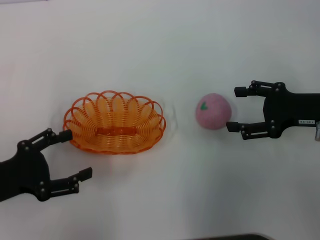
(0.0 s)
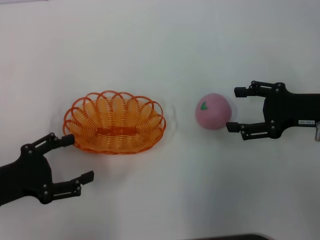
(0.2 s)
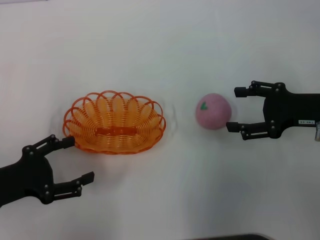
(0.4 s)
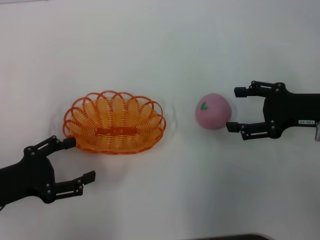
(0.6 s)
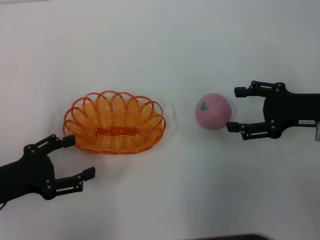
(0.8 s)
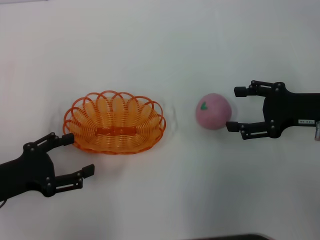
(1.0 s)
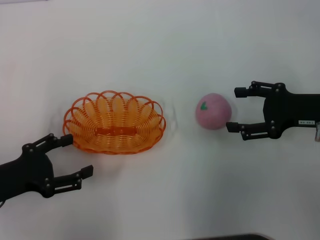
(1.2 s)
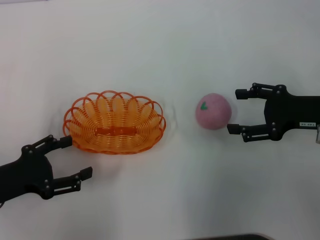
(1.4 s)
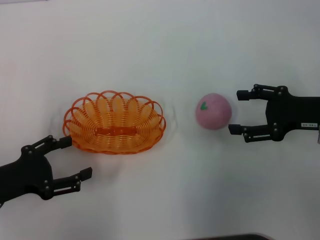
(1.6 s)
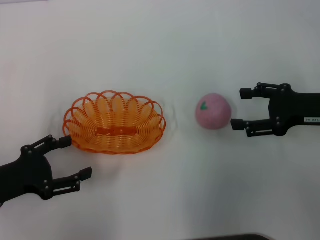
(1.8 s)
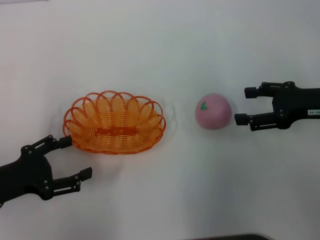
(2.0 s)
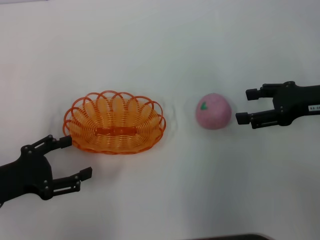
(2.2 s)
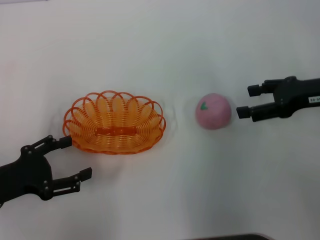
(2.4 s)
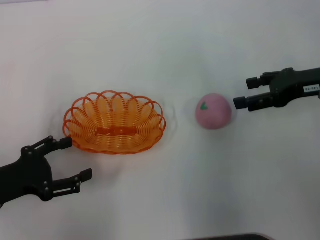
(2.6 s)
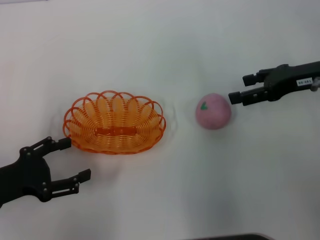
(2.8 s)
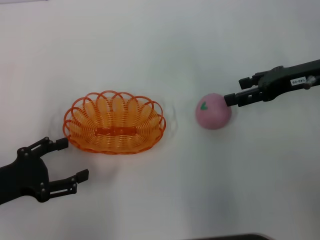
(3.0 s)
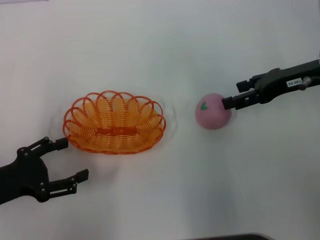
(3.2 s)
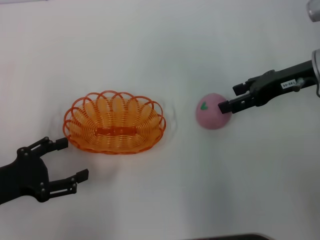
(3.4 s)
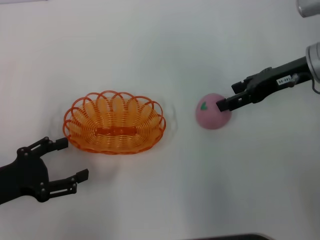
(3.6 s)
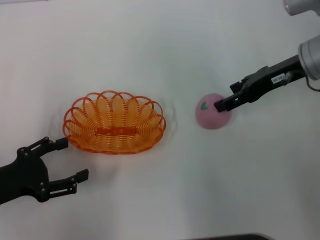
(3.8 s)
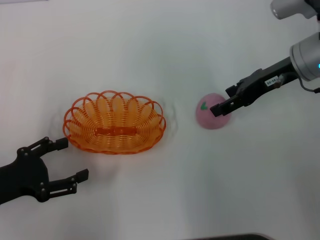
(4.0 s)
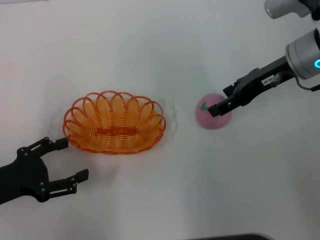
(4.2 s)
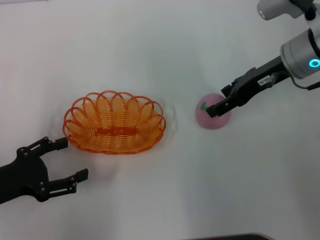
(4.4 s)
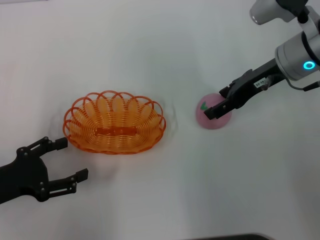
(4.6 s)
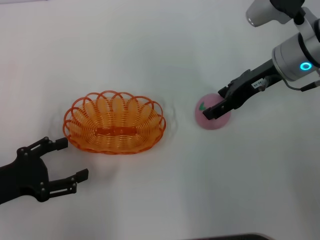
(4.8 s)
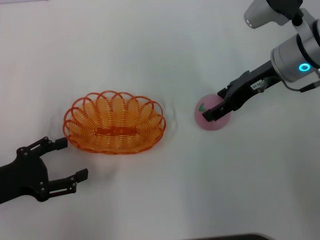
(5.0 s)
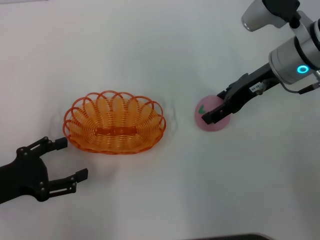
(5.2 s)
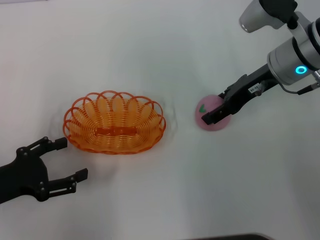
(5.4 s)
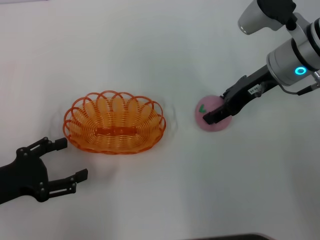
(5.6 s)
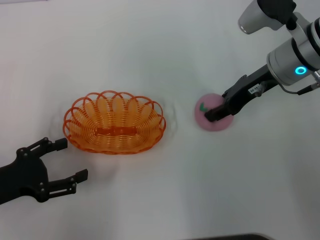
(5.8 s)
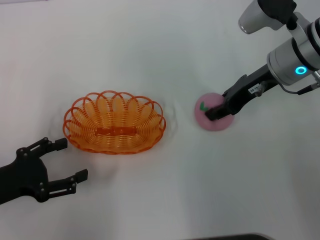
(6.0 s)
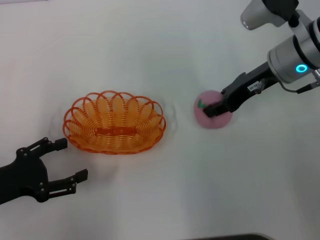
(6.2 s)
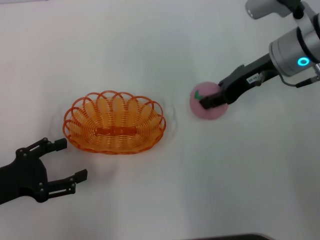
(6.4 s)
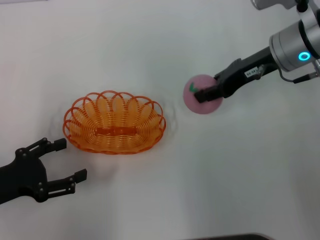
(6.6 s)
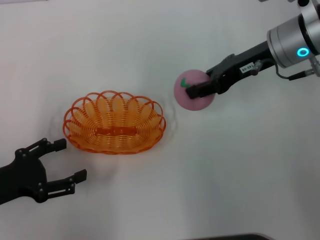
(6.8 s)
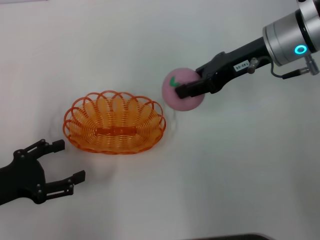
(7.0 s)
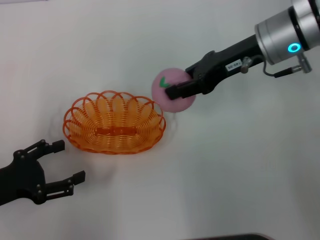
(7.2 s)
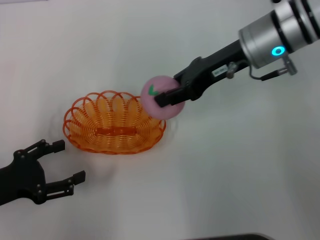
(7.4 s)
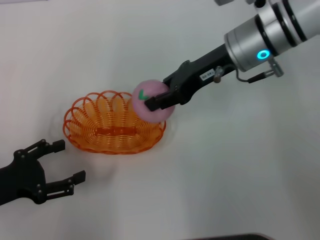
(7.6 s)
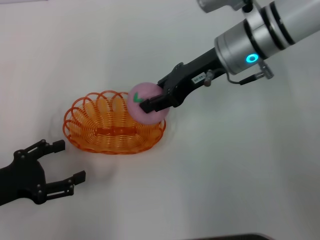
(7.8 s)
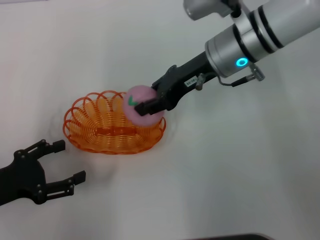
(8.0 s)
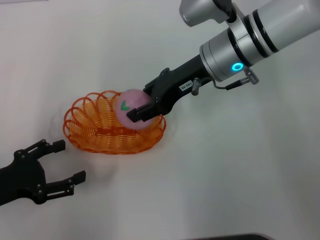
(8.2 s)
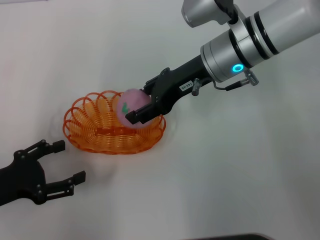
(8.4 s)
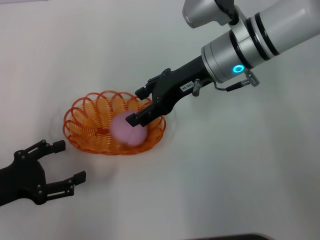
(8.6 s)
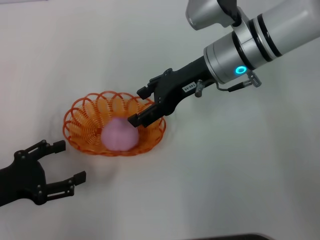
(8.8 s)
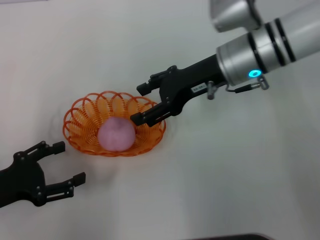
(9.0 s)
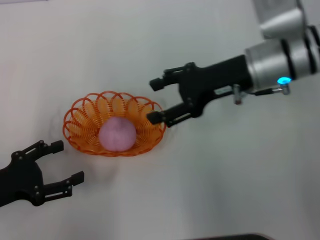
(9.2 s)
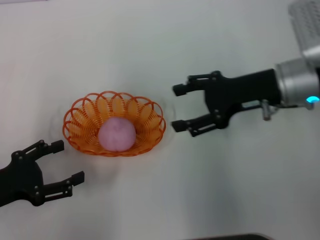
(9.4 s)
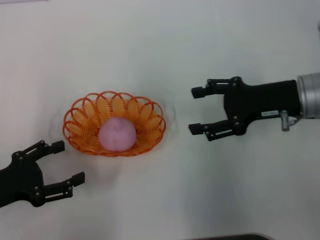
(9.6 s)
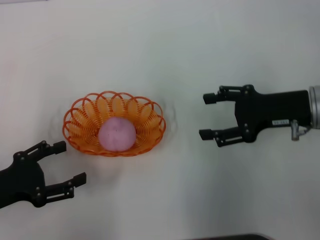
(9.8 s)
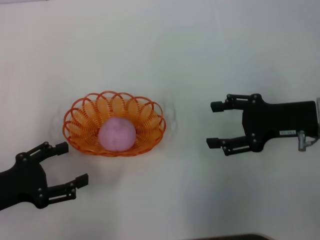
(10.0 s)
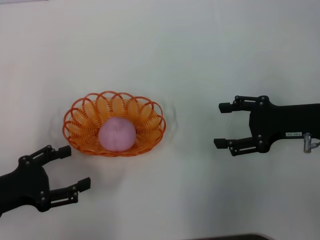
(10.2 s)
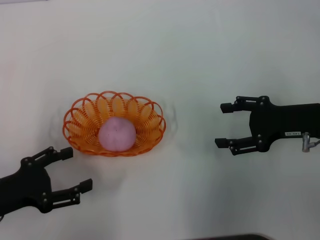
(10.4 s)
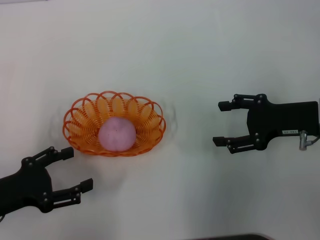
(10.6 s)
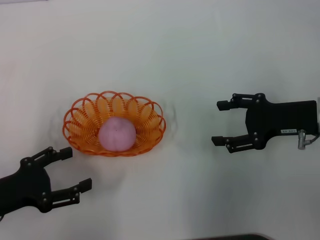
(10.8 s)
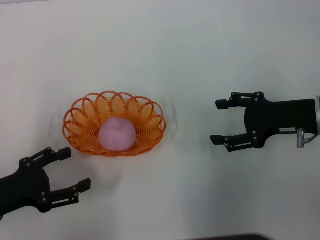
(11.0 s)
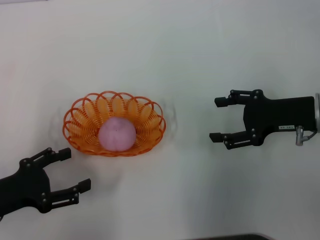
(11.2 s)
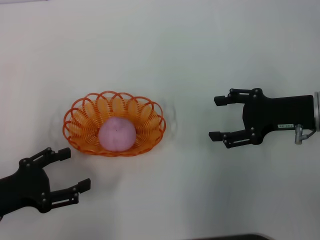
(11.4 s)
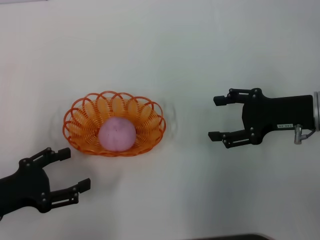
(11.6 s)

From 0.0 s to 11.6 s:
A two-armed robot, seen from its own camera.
Step, from 0.6 s to 6.8 s: Pick up the peach with the right gripper.
Step, from 7.0 s to 9.2 s: Place the peach into the basket with the right gripper.
From 0.0 s to 1.4 s: The grippers make only small movements.
From 1.4 s to 2.8 s: The right gripper is displaced forward by roughly 5 cm.
From 2.8 s to 4.4 s: The right gripper moves to the left, some 5 cm.
From 4.4 s to 5.8 s: The right gripper closes its fingers.
From 5.8 s to 7.2 s: The right gripper closes.
From 7.2 s to 8.8 s: The right gripper is displaced to the left by approximately 5 cm, and opens.
From 8.8 s to 10.2 s: The right gripper heads to the right and backward, covering approximately 20 cm.
From 10.2 s to 11.6 s: The grippers move only a little.
